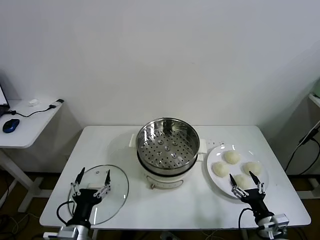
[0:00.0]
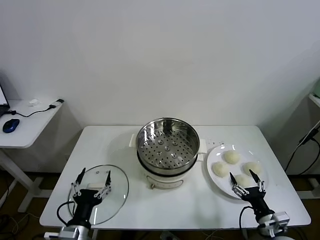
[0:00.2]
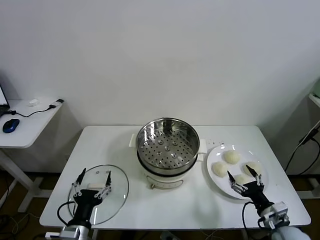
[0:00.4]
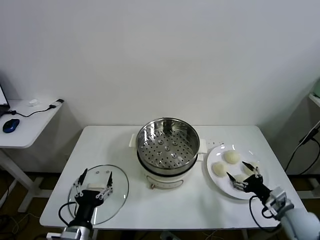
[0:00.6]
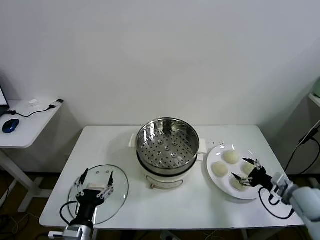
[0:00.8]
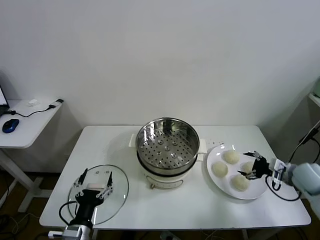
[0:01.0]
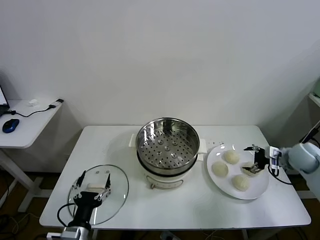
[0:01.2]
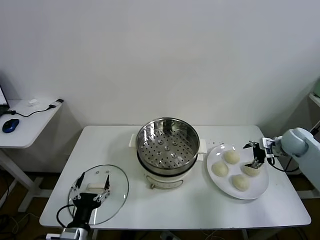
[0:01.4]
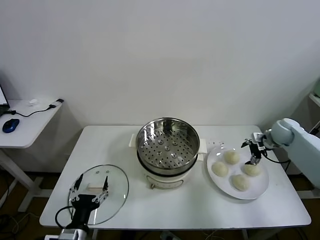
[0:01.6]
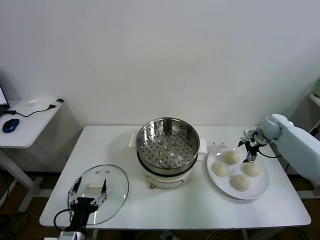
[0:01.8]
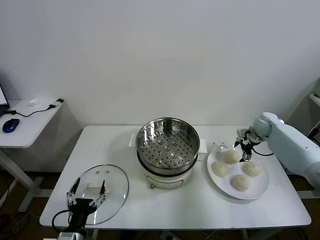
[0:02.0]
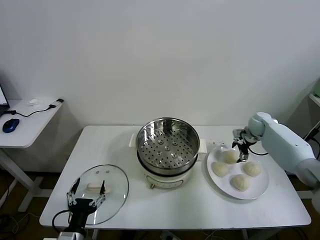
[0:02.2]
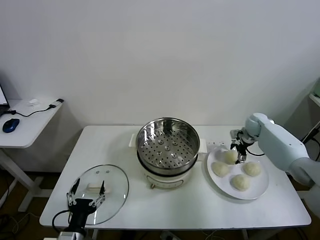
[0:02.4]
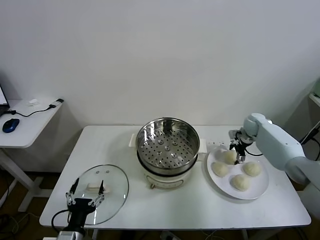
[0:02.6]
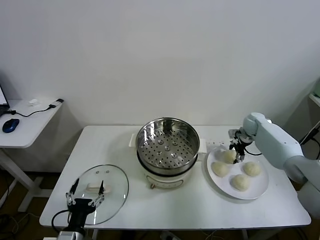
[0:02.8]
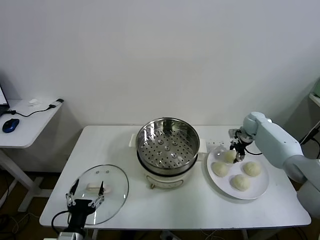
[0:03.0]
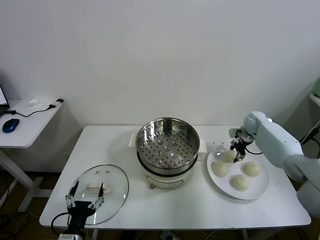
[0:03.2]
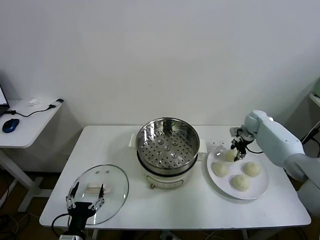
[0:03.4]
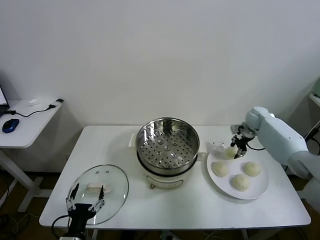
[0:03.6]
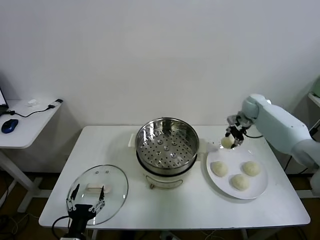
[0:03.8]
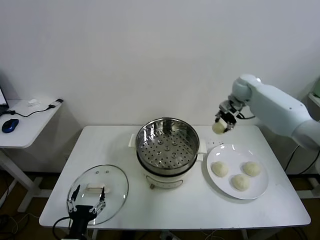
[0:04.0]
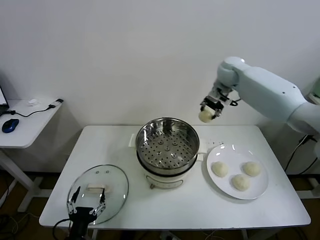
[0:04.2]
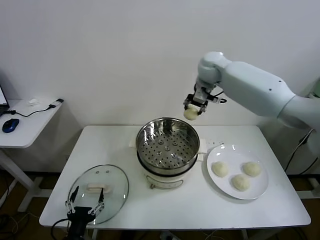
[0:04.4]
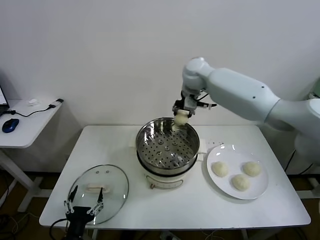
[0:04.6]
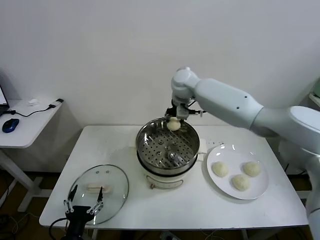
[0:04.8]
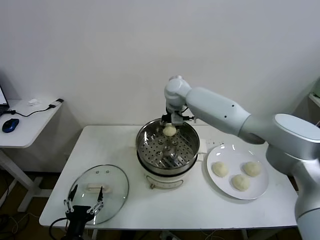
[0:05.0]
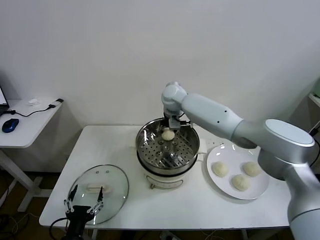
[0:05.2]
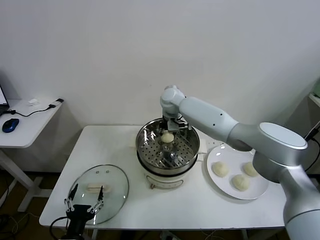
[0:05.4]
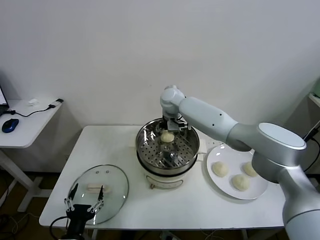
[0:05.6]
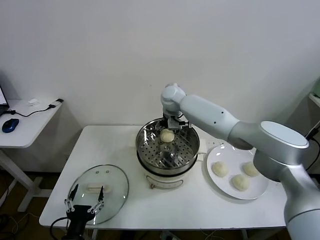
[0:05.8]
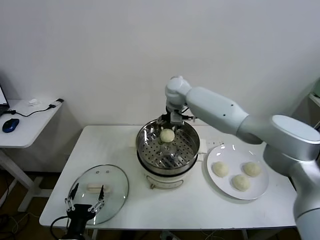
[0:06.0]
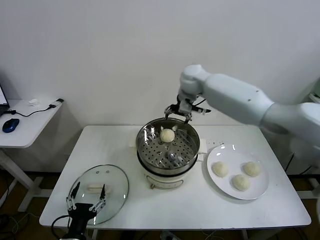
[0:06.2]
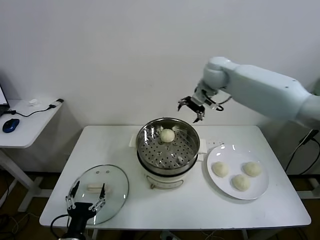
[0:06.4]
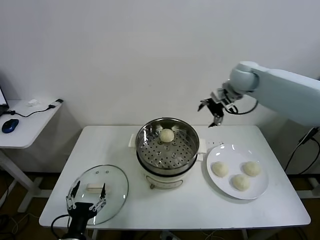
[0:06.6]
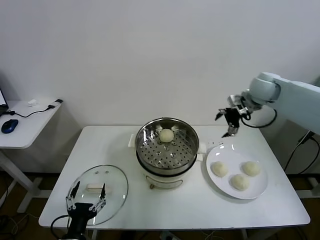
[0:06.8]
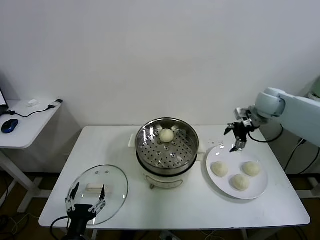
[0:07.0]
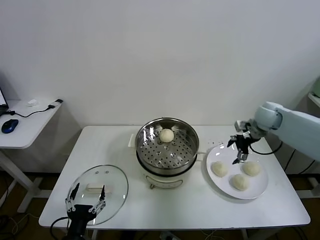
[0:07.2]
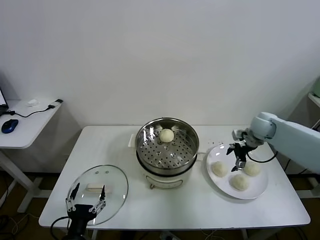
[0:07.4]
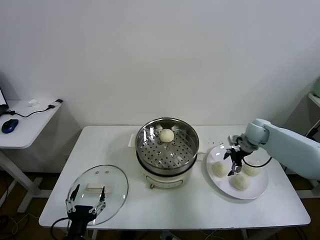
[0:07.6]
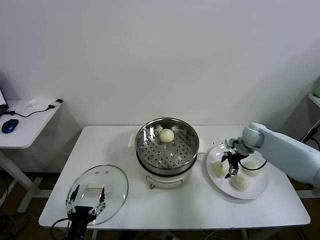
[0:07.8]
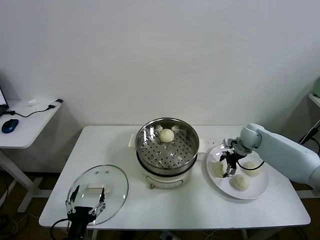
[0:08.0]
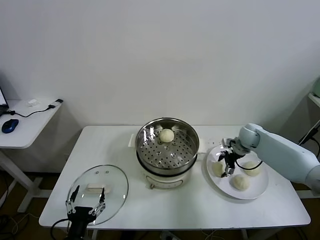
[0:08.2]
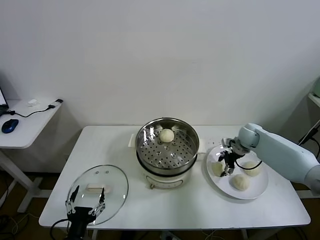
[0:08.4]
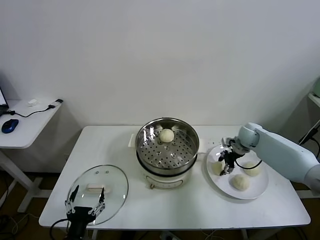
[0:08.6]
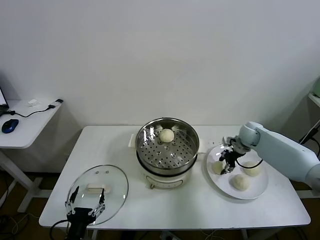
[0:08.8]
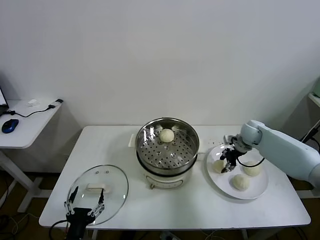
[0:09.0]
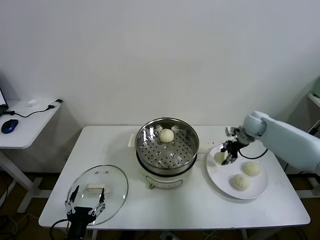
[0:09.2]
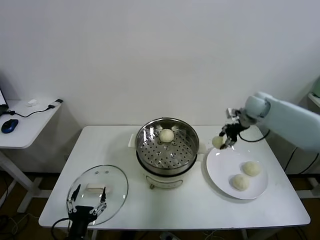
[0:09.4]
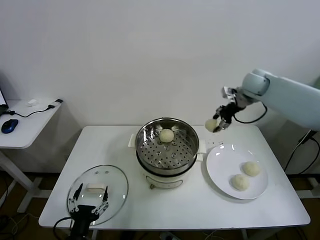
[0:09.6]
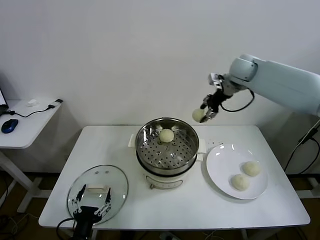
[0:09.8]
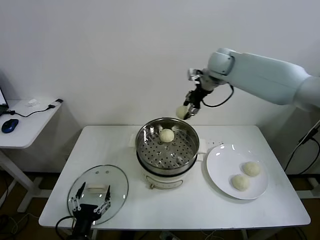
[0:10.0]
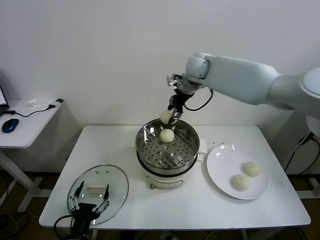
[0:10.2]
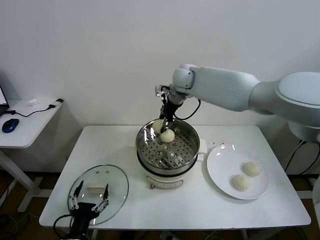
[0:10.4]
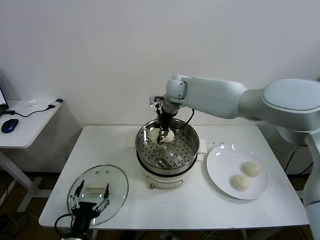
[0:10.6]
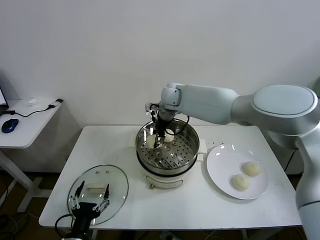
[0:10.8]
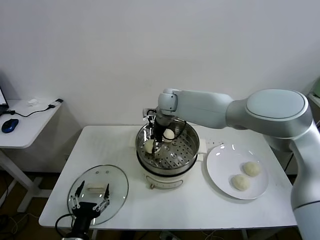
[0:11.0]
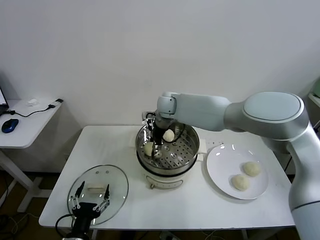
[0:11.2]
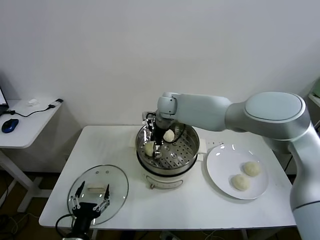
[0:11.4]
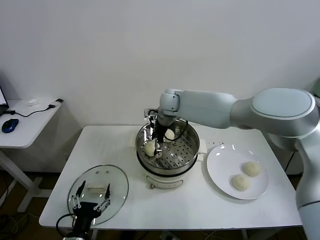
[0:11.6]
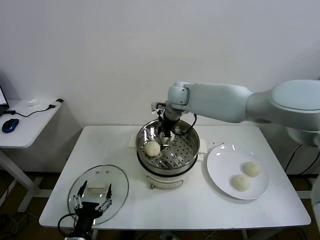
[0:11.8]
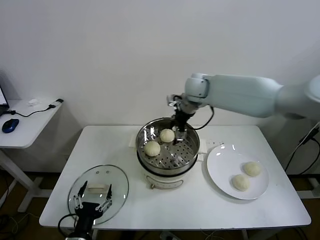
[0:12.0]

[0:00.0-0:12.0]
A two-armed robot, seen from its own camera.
Task of the whole recording: take steamed baozi put them in steamer.
Step, 0.0 to 2.8 s: Grasp the baozi in the plate with right gripper.
Step, 3.0 to 5.8 s: Place the baozi on the steamer with right gripper.
Step, 6.0 to 8.6 s: Grasp the baozi in the plate with right gripper.
Step, 8.8 to 11.6 s: Place the baozi on the steamer with right gripper.
1.6 to 3.0 s: The right gripper moves forward, some 5 cm, and closes.
3.0 to 4.4 s: The right gripper heads to the left and upward, covering some 35 cm.
4.4 to 6.0 s: The right gripper moves downward, about 5 cm, and opens.
6.0 to 7.6 s: The right gripper moves to the right and downward, roughly 35 cm.
7.6 to 9.0 s: The right gripper closes its fingers.
9.0 to 10.4 s: The right gripper travels to the left and upward by about 35 cm.
10.4 to 12.0 s: The right gripper is displaced to the right by some 10 cm, and opens its fingers.

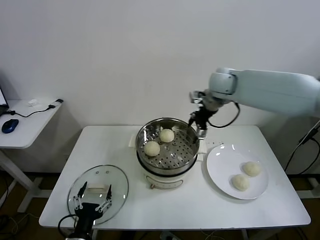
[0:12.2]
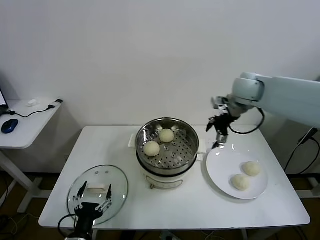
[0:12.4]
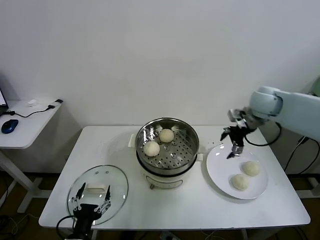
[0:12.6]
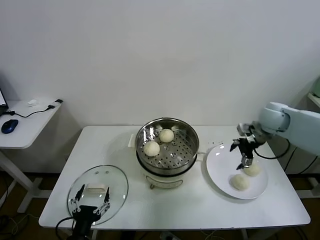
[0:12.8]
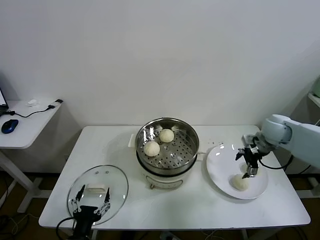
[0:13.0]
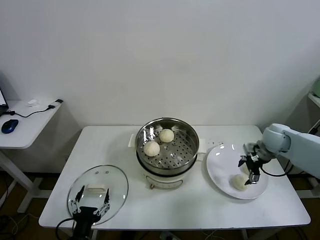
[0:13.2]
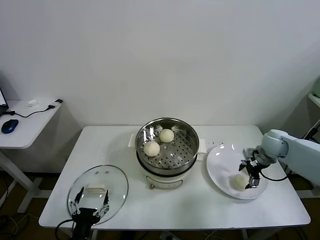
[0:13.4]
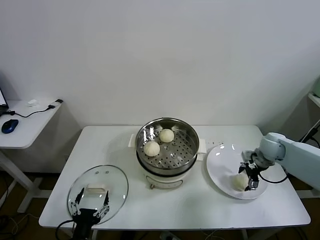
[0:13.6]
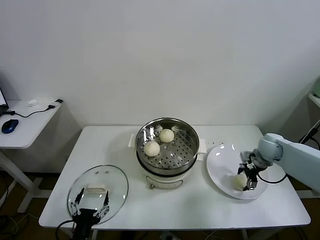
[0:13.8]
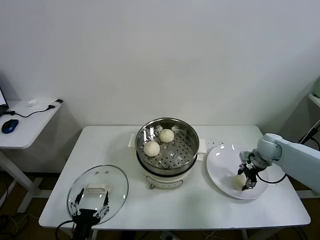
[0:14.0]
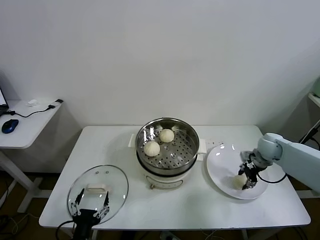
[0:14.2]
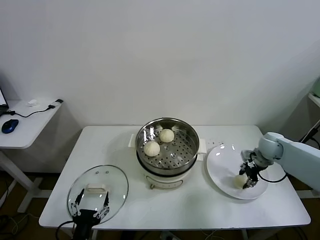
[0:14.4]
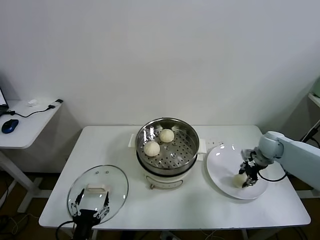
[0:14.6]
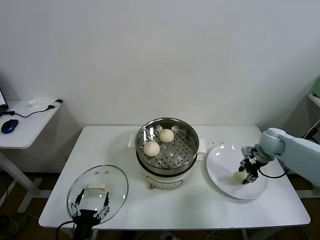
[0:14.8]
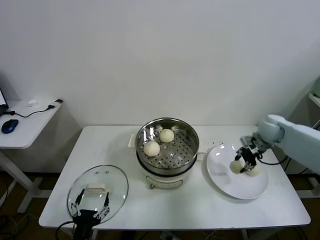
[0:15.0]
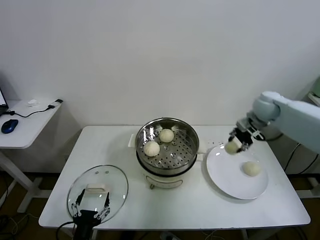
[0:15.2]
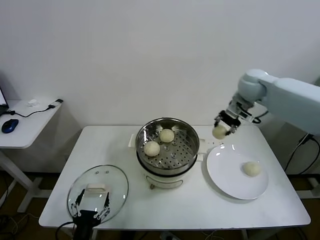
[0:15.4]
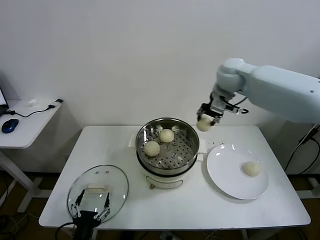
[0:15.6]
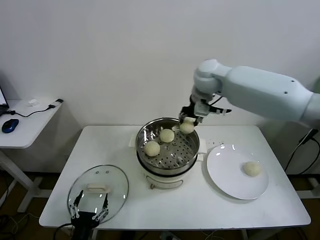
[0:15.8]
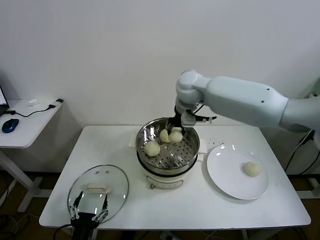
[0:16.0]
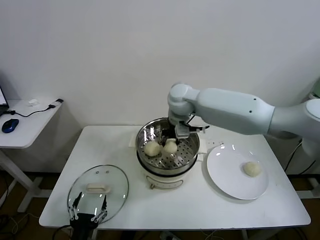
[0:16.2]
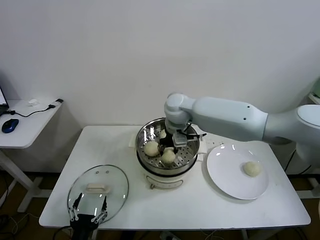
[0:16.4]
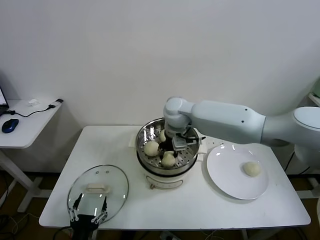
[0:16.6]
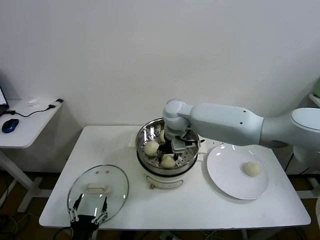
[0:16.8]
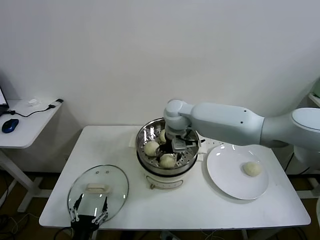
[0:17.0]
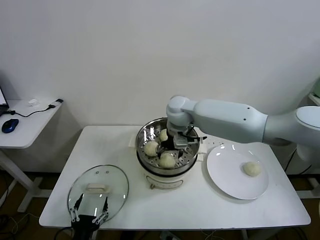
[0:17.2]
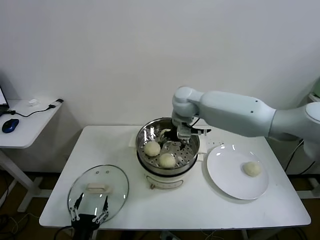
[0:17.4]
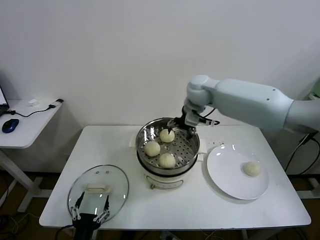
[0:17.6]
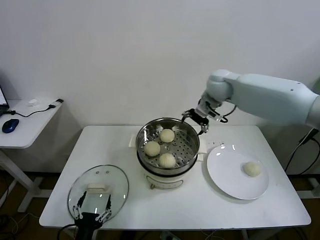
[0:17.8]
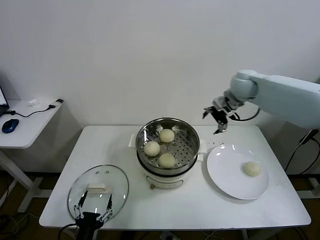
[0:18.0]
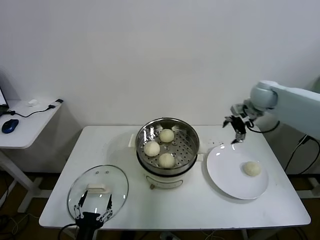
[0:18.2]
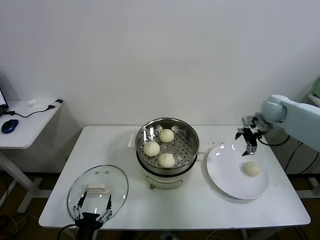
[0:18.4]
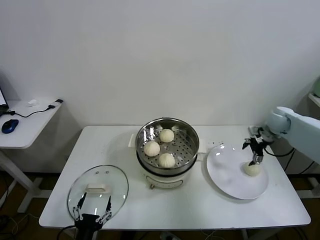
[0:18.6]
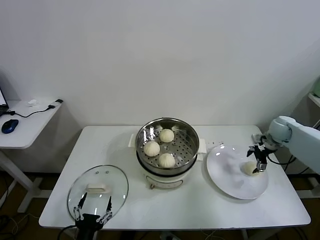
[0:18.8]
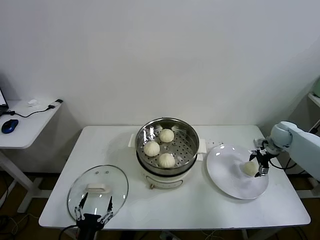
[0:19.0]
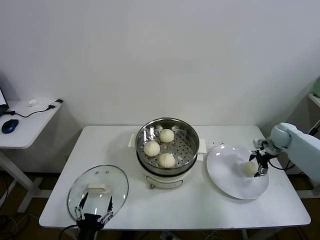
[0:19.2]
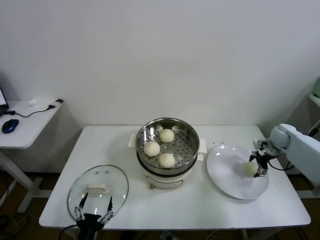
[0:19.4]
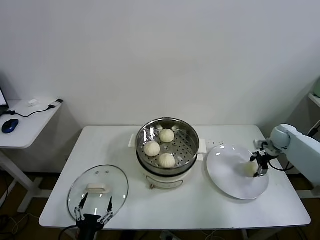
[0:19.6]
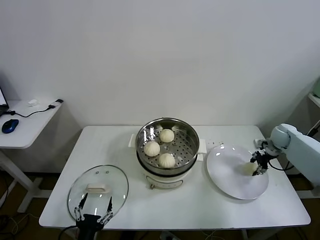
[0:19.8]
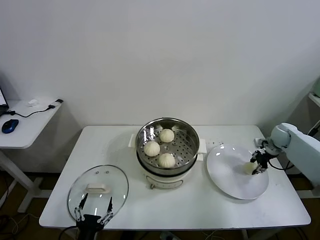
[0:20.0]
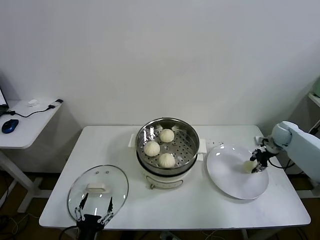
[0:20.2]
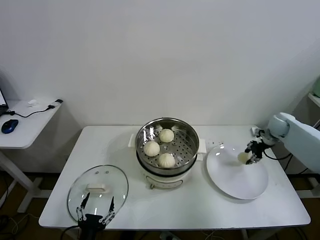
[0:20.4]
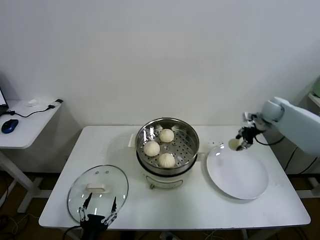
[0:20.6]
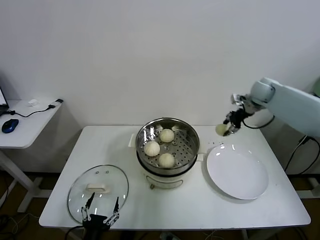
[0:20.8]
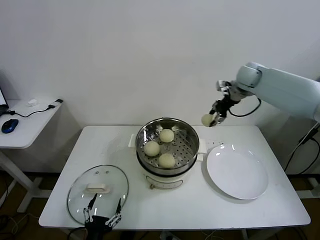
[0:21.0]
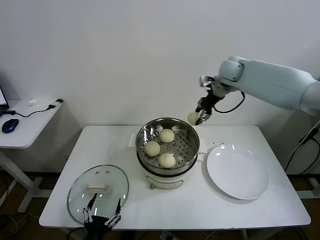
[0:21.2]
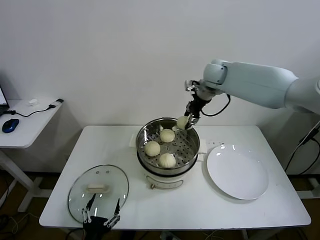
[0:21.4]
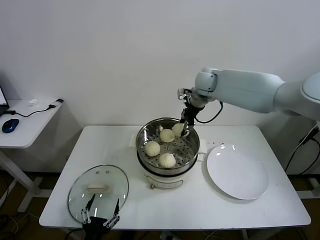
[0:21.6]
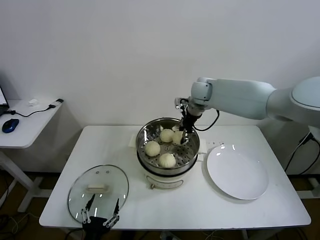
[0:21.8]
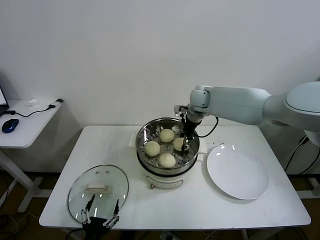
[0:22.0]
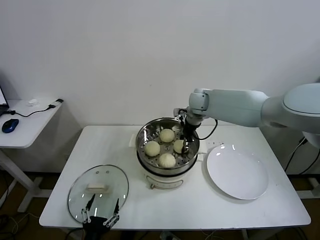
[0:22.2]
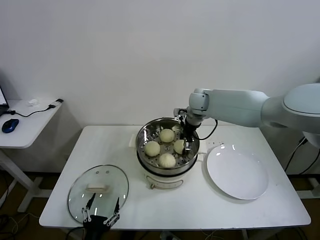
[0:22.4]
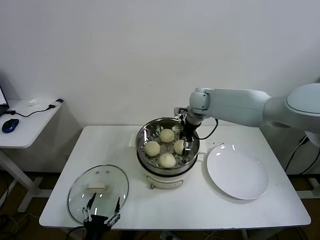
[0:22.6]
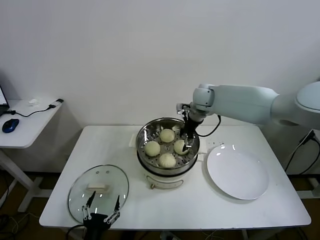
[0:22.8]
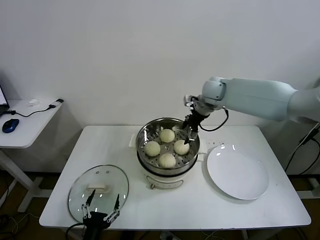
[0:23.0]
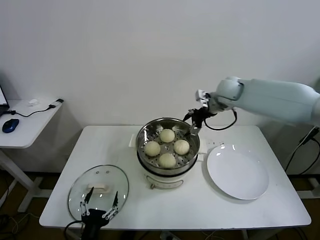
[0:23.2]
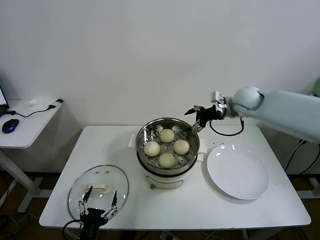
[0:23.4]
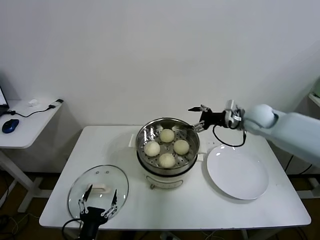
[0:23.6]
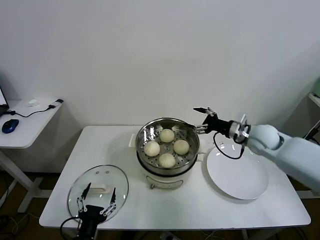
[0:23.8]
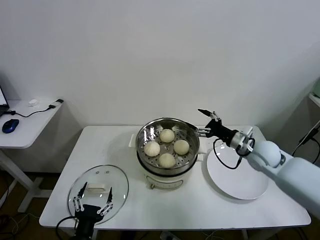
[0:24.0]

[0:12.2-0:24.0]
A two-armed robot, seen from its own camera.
Task of the whole recording: take steamed baozi put them in steamer.
Step, 12.2 to 14.0 s: Grasp the baozi in the plate with right gripper.
Step, 14.2 to 17.0 s: Place the baozi on the steamer with right gripper.
Step, 17.2 to 19.8 s: Grasp the baozi in the plate with right gripper.
Step, 20.0 to 22.6 s: Place the baozi on the steamer with right gripper.
12.2 to 13.6 s: The right gripper heads downward and to the right, covering about 30 cm.
13.6 to 15.2 s: The right gripper moves upward, forward and to the left, approximately 20 cm, and closes up.
15.2 to 16.6 s: The right gripper moves to the left, approximately 30 cm.
16.6 to 18.2 s: The right gripper moves to the right, about 30 cm, and opens.
18.2 to 19.6 s: The right gripper heads downward and to the right, covering roughly 20 cm.
19.6 to 21.0 s: The right gripper travels upward and to the left by some 30 cm, and closes its fingers.
21.0 to 22.6 s: The right gripper moves to the left and downward, about 20 cm, and opens its fingers.
22.6 to 24.0 s: The right gripper heads to the right, backward and downward, covering approximately 25 cm.
